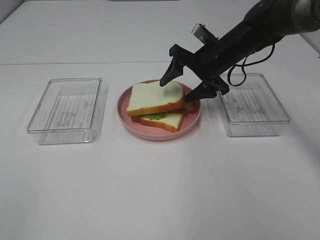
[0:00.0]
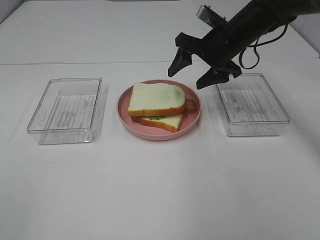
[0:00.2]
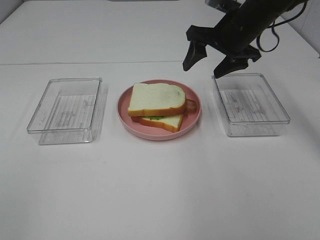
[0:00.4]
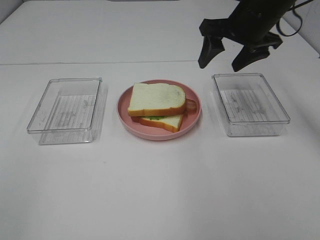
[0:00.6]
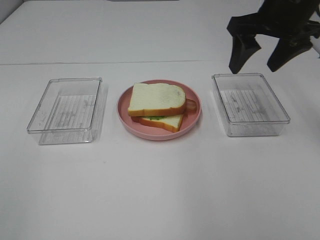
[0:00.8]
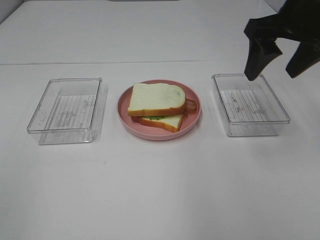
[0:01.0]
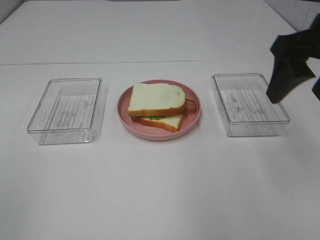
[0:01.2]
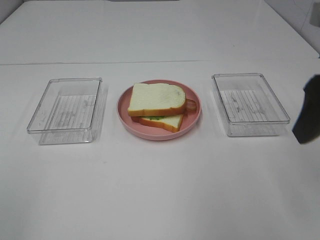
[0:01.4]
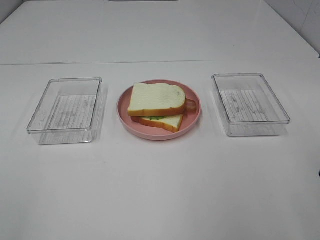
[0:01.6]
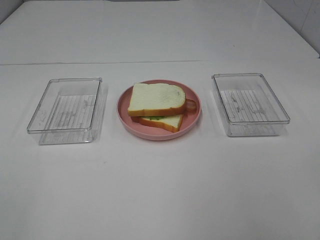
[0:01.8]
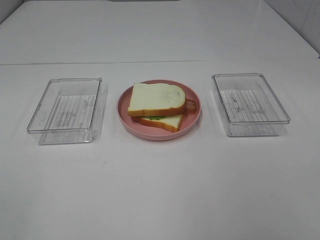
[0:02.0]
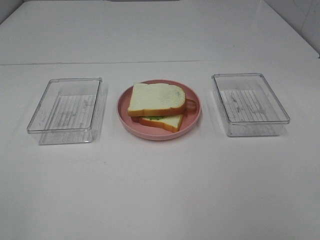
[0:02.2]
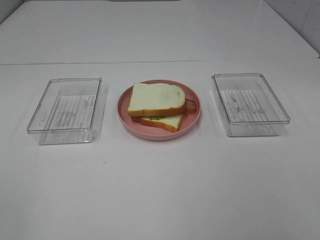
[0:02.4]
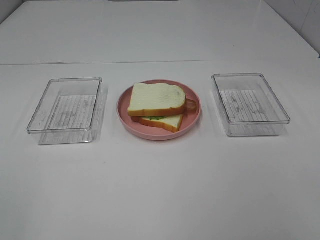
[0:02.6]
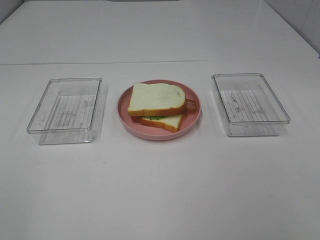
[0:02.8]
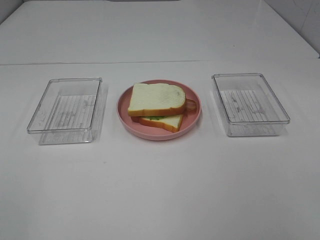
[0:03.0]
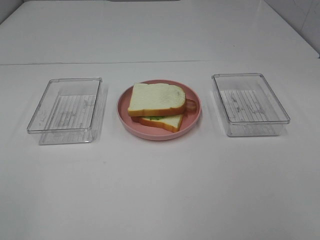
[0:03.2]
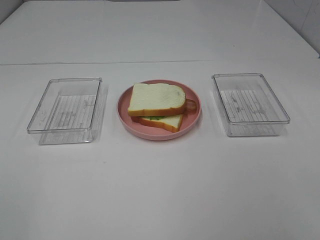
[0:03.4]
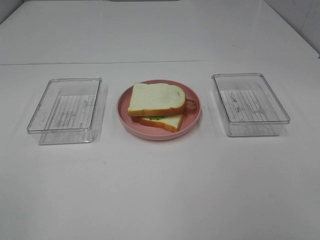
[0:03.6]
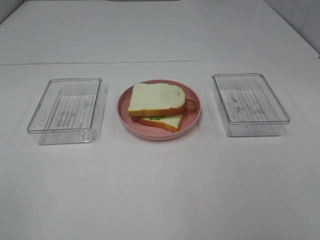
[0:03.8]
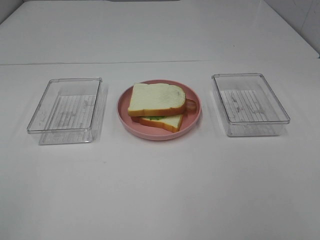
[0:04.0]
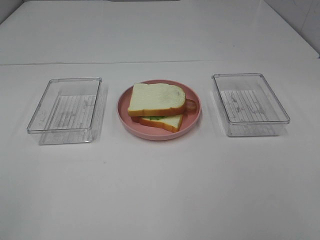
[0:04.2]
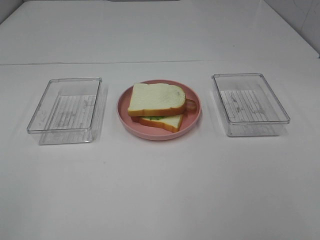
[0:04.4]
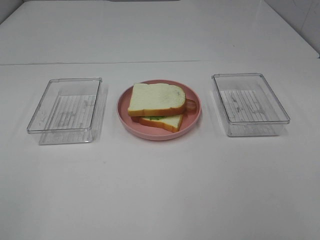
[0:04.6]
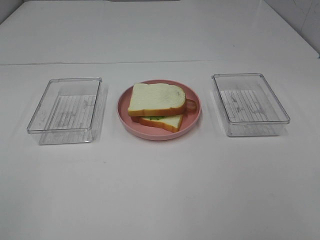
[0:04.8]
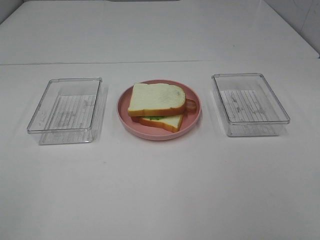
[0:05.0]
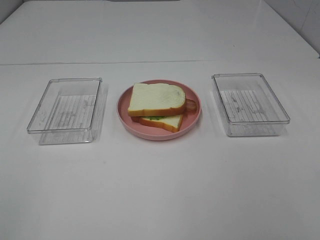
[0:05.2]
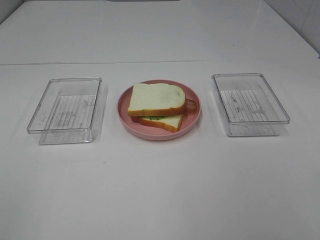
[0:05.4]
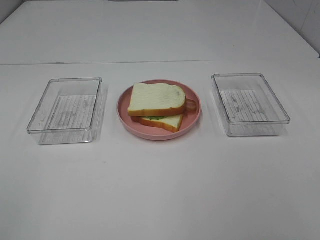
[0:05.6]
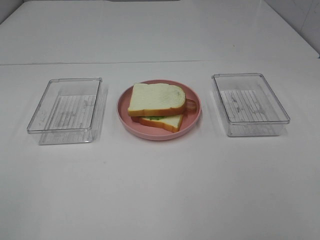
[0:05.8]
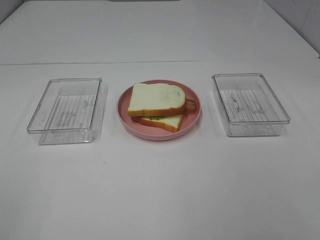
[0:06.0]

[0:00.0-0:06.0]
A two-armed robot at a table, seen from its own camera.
Task of the whole recording: Make sandwiches.
0.0 to 1.6 s: The right gripper heads backward and upward, covering about 30 cm.
4.4 to 6.0 s: Both grippers stay about where they are.

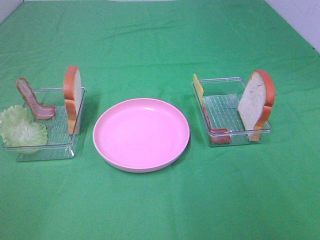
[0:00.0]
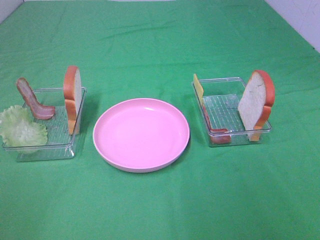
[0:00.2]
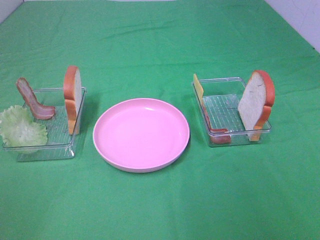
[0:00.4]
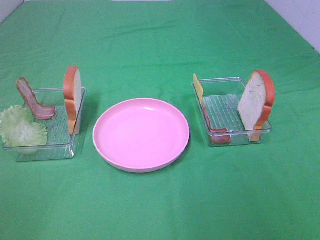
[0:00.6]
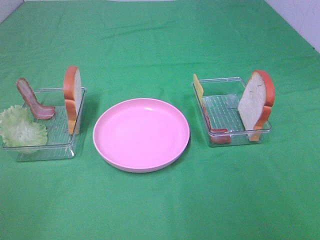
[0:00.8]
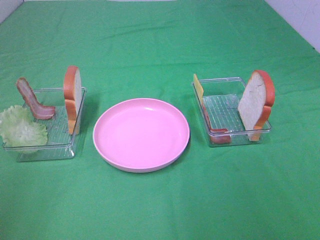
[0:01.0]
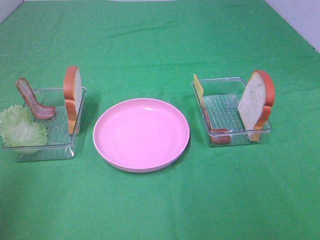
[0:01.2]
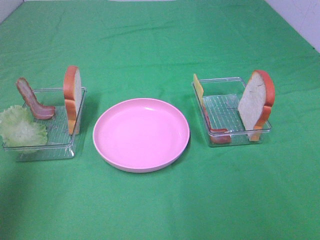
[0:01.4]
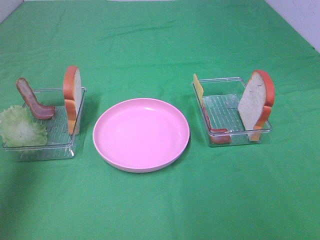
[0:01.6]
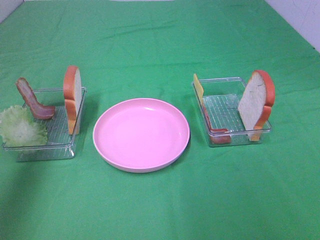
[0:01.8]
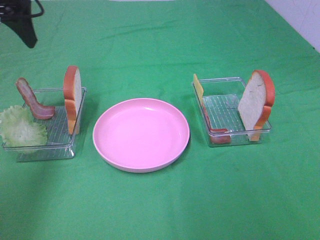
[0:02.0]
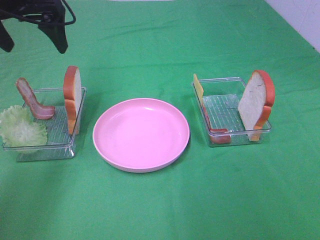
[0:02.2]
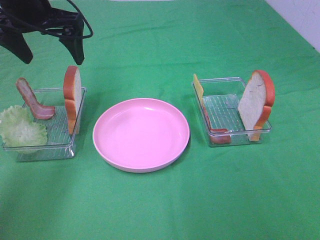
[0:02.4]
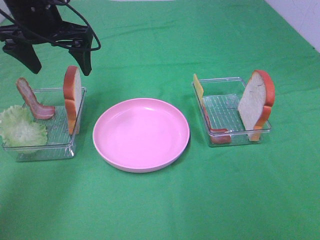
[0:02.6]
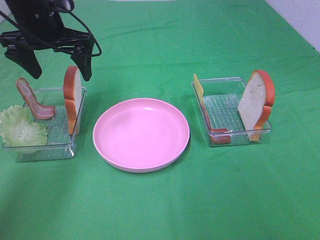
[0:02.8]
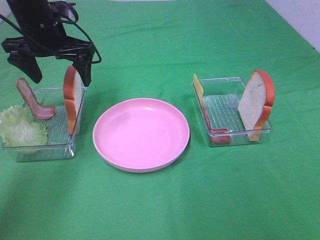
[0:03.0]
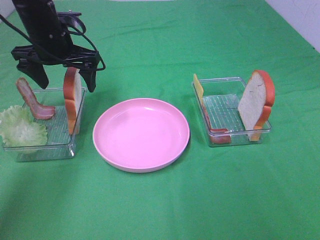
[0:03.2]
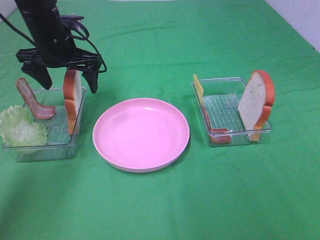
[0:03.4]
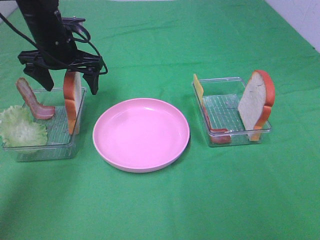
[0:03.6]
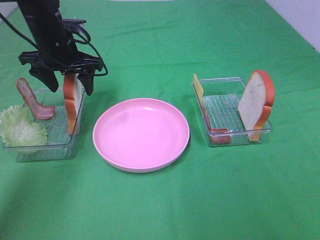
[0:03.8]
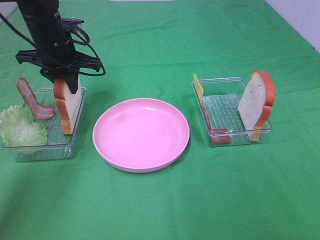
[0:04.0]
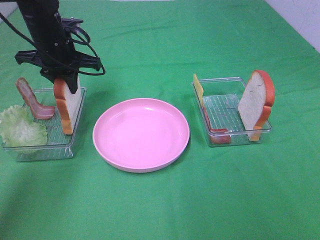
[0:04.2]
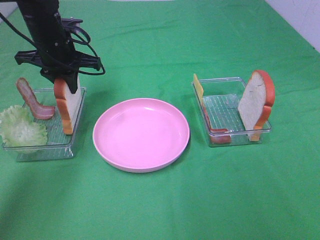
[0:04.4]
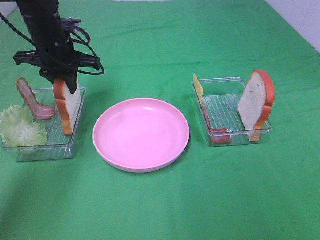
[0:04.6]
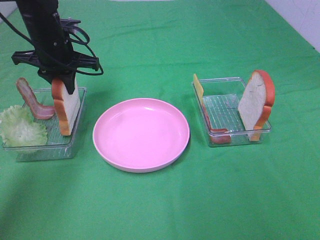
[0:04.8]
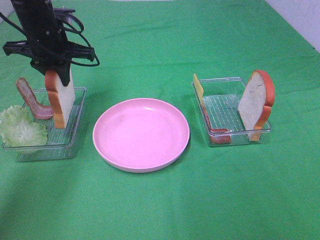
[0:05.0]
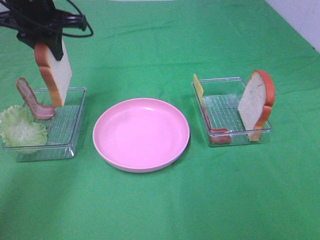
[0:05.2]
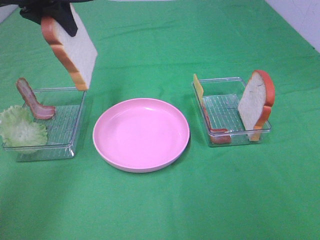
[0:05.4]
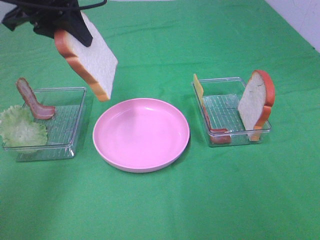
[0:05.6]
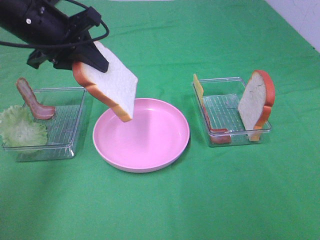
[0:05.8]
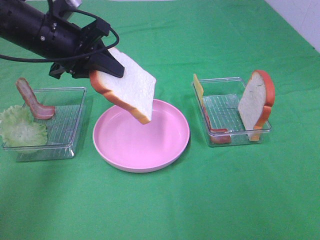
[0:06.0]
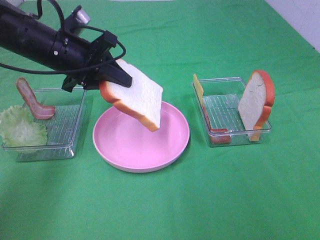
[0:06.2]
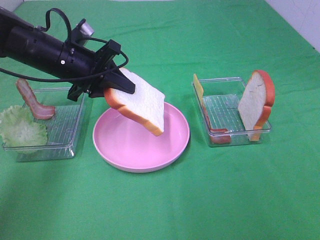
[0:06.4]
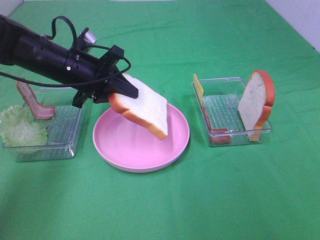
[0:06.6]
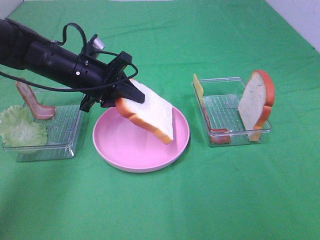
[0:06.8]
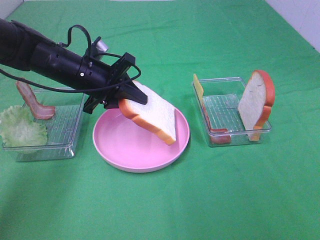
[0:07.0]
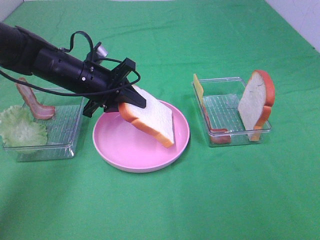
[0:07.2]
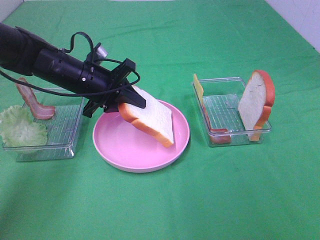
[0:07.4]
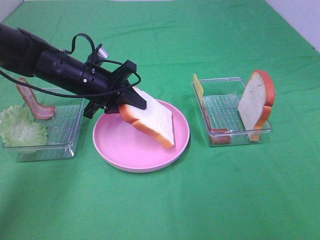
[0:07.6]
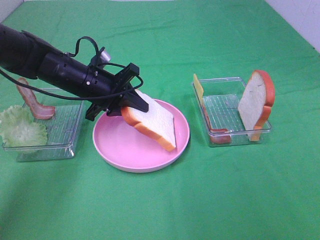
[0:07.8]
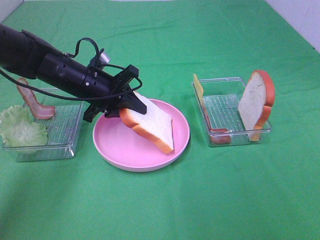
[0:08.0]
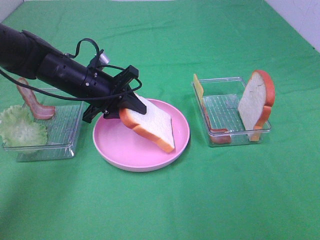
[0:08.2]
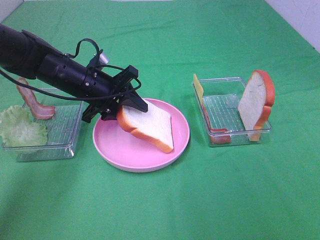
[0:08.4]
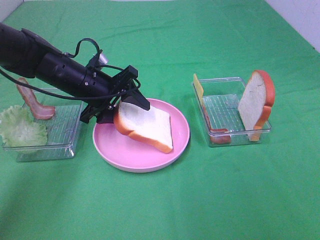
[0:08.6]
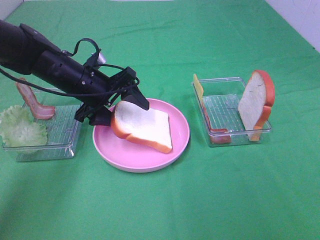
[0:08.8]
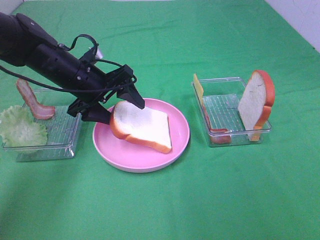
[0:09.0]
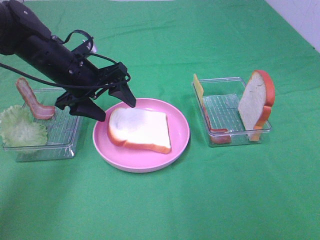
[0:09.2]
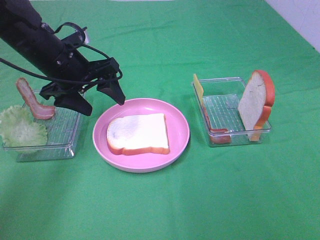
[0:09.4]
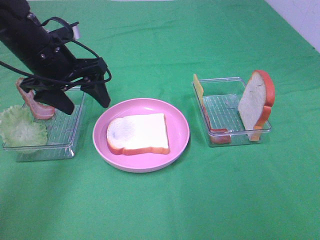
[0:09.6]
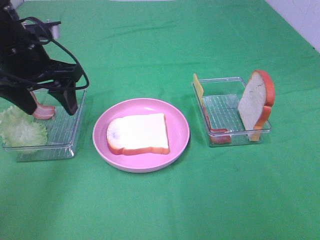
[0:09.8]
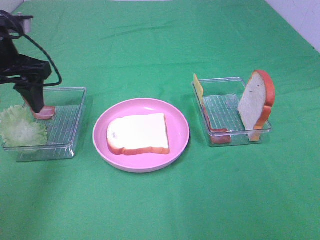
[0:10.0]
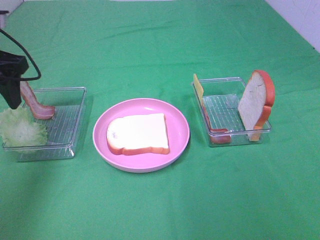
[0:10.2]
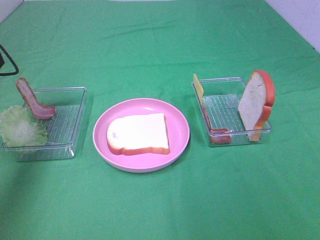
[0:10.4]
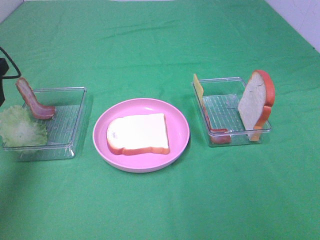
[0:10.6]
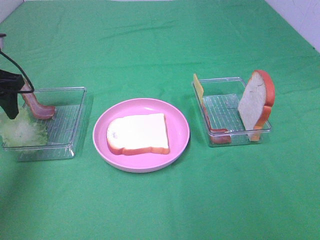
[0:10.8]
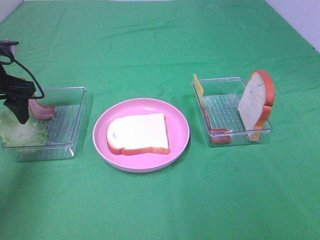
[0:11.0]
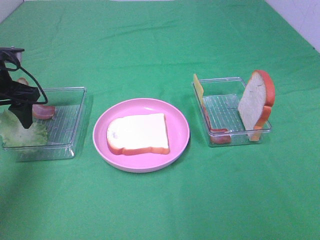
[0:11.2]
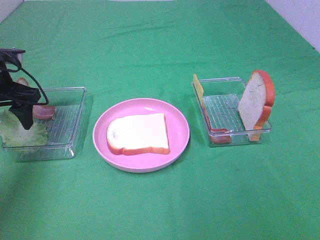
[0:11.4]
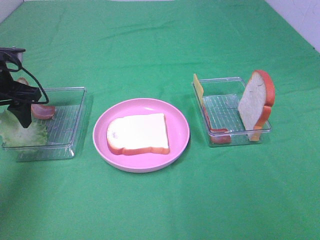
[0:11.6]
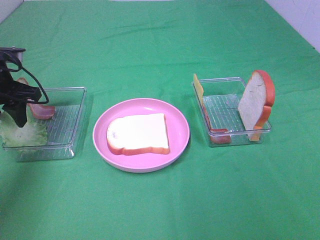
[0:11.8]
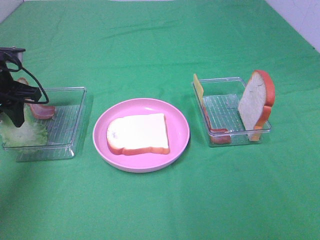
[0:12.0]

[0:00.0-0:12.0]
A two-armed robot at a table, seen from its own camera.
Task of the whole recording: Make sandwiches.
Step, 0.0 to 4.6 s: Left hand:grab the bread slice.
Step, 4.8 to 9.2 s: Left hand:place the bread slice on the plate.
0.0 to 1.6 s: The left gripper is displaced forward by about 30 cm.
1.6 to 3.0 s: The left gripper heads forward, downward and to the right, covering roughly 25 cm.
3.0 to 4.4 s: The left gripper closes.
4.4 to 6.0 s: The left gripper goes about 10 cm backward, and reaches approximately 15 cm upward, then returns.
6.0 to 7.6 s: The left gripper goes some 10 cm downward.
7.6 to 9.0 s: The left gripper opens up.
9.0 to 10.4 s: The left gripper moves to the left and upward, some 20 cm.
10.4 to 12.0 s: The left gripper moves downward, some 10 cm, and closes up.

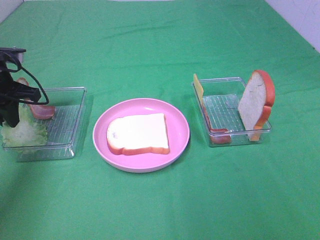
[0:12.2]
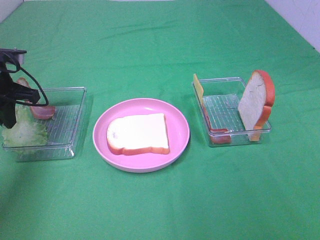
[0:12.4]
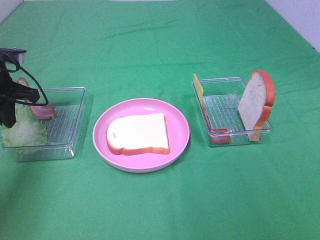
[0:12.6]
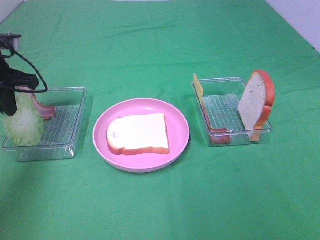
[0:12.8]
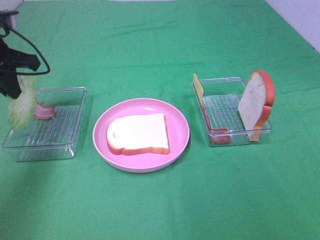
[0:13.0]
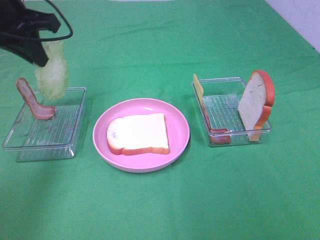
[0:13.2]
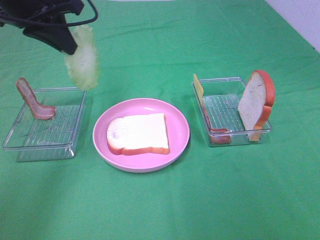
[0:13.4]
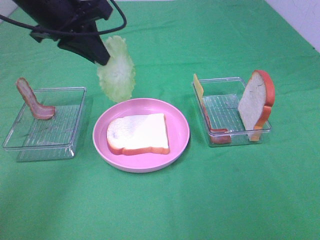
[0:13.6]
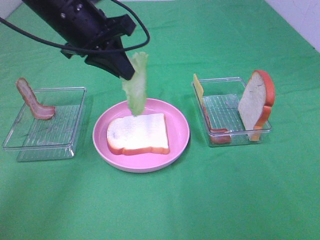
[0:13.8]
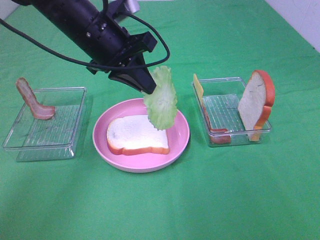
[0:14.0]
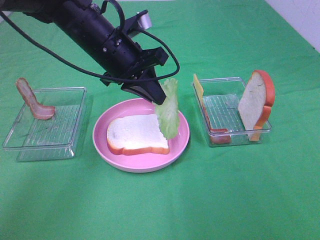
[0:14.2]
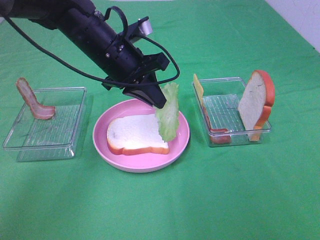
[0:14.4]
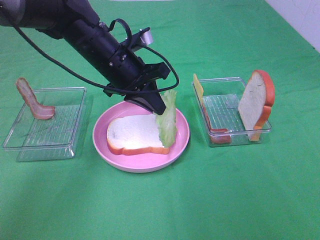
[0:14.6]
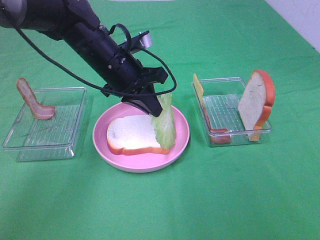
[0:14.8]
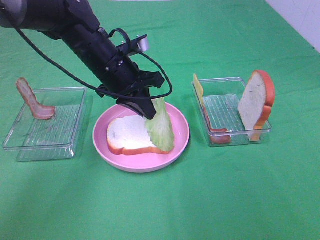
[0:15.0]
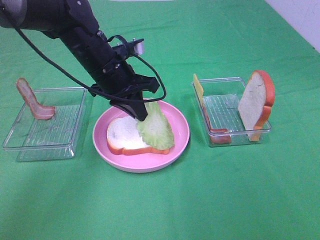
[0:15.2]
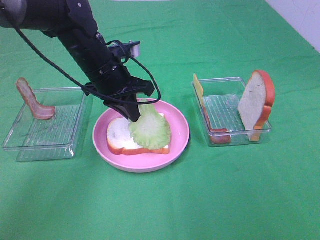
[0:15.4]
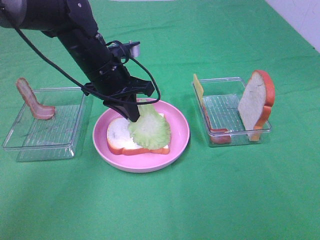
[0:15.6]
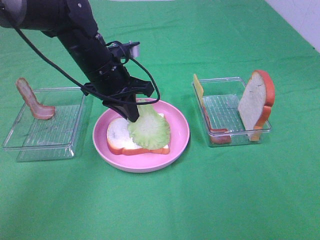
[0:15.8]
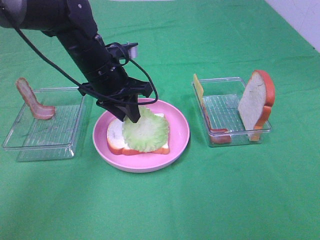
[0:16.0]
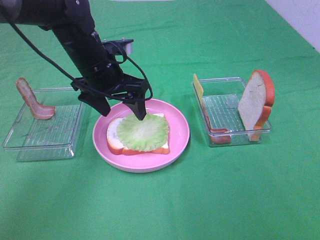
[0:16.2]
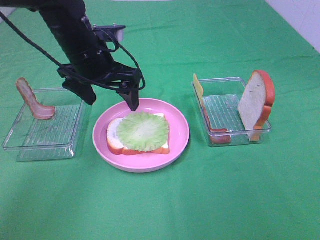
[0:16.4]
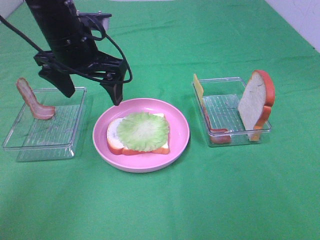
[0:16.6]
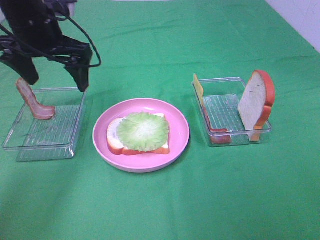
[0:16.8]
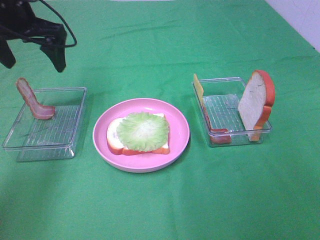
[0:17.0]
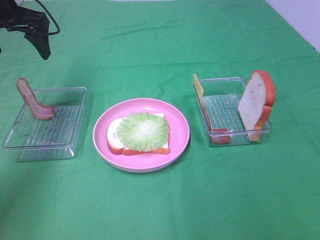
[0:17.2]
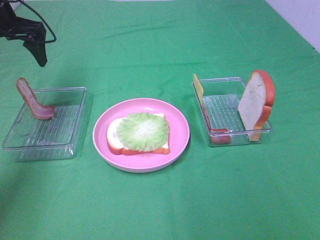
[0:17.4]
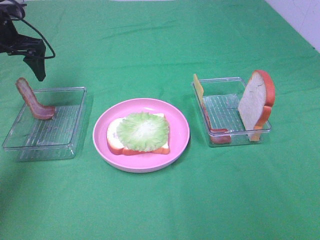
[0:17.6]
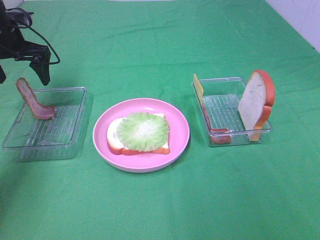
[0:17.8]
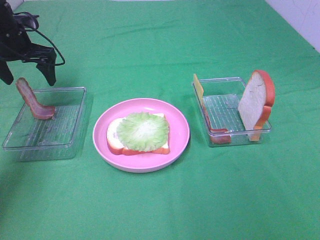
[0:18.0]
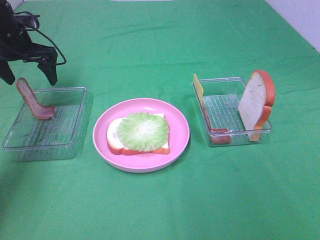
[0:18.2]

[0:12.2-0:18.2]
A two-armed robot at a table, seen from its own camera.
Task of the whole recording: Make sandwiches.
Step, 12.6 to 16.2 s: Left hand:place the lettuce slice on the bread slice.
12.2 to 13.8 s: The left gripper travels to the right and upward by about 20 cm.
13.8 to 15.2 s: The left gripper goes some 10 cm downward.
15.2 to 16.6 s: The left gripper moves upward, some 5 cm, and opens its fingers.
16.6 to 18.2 s: The left gripper travels to the left and forward by about 20 cm.
